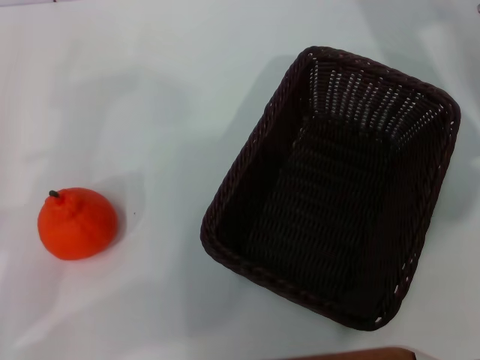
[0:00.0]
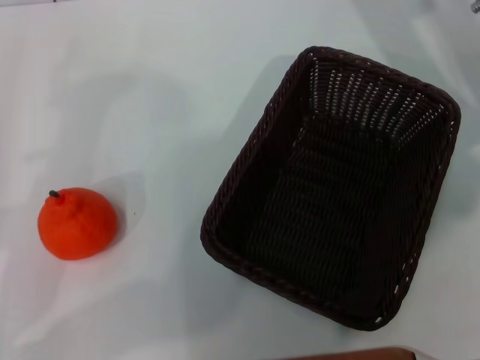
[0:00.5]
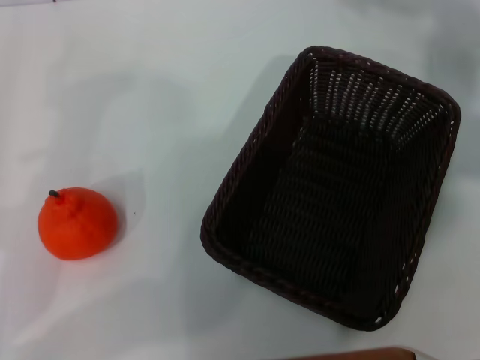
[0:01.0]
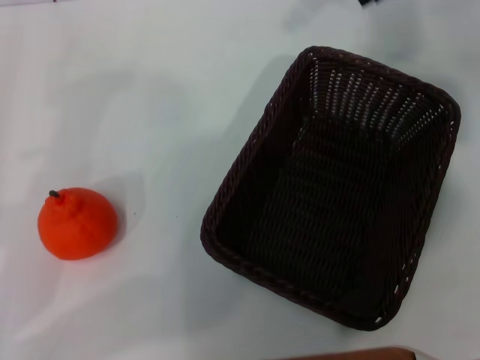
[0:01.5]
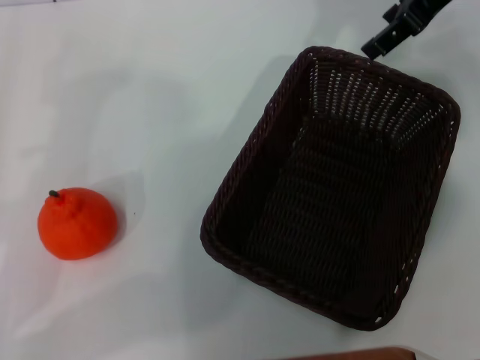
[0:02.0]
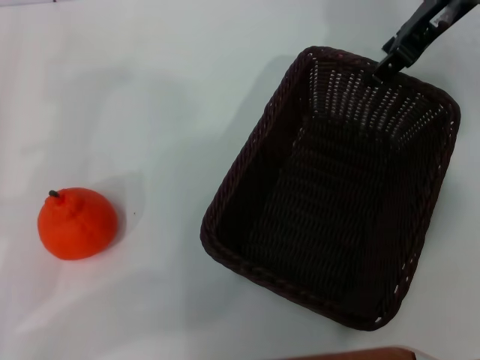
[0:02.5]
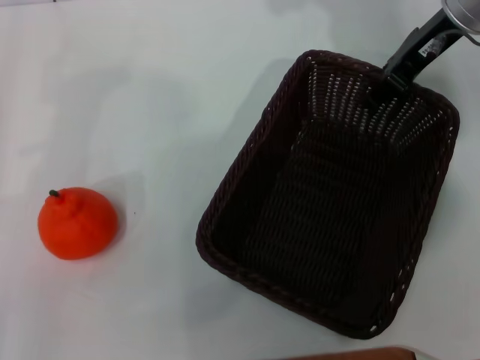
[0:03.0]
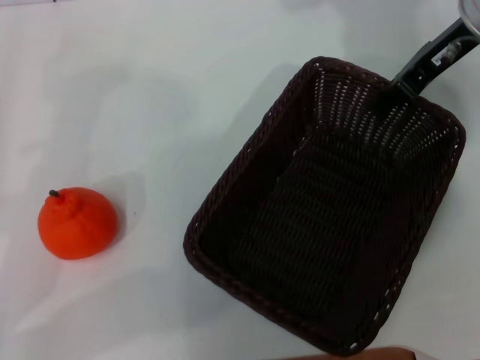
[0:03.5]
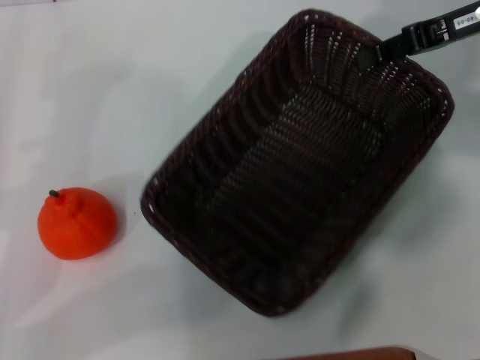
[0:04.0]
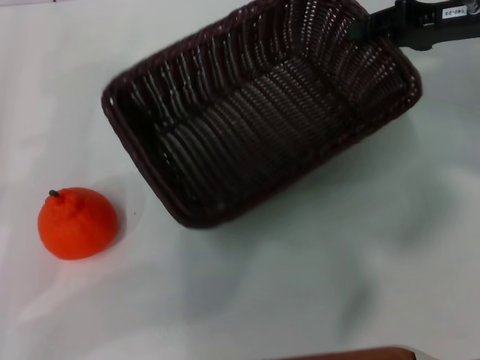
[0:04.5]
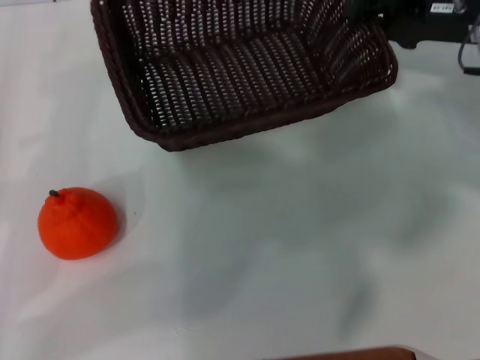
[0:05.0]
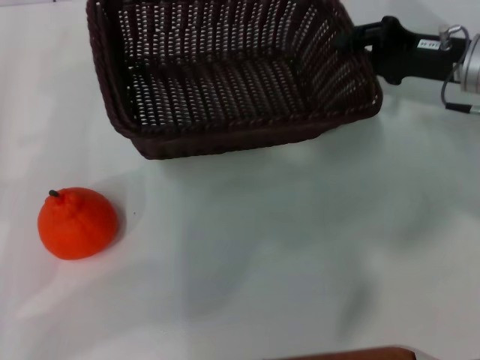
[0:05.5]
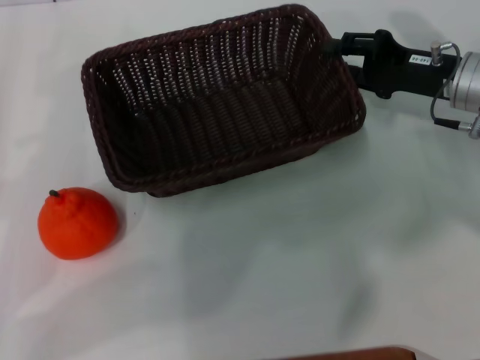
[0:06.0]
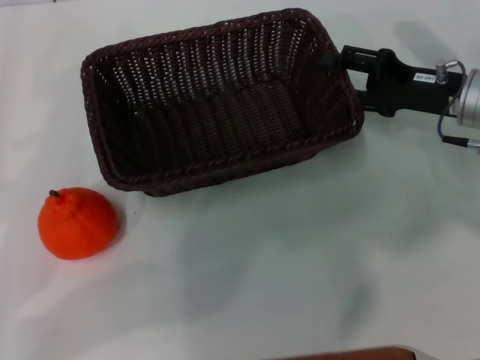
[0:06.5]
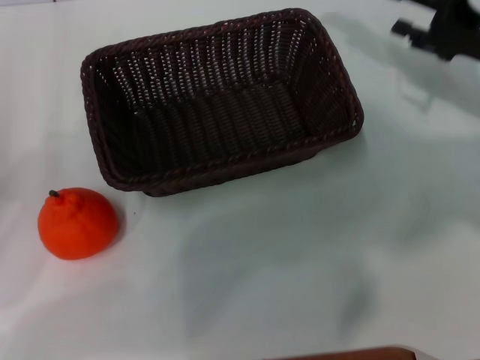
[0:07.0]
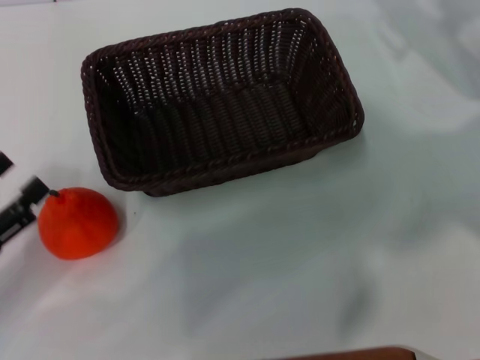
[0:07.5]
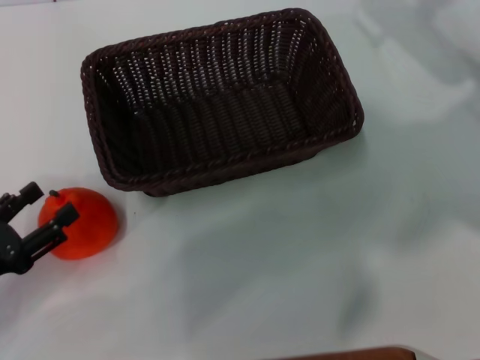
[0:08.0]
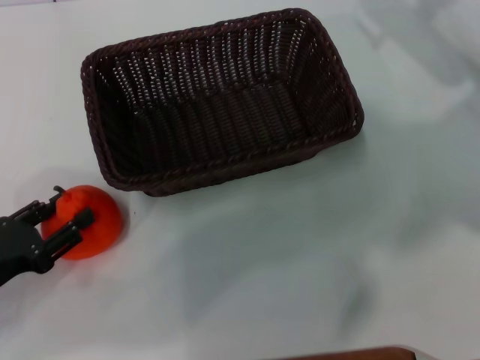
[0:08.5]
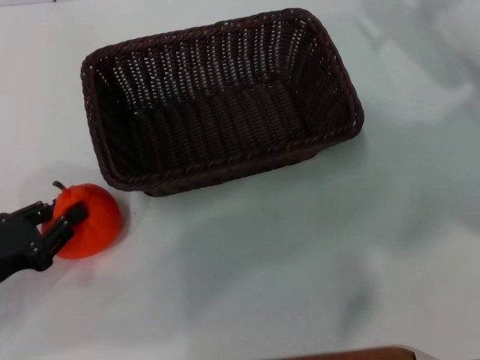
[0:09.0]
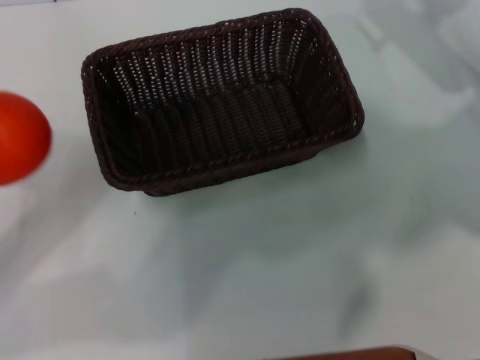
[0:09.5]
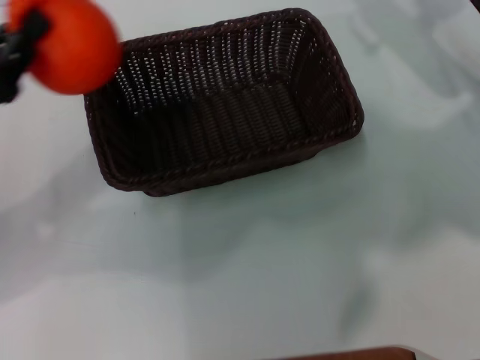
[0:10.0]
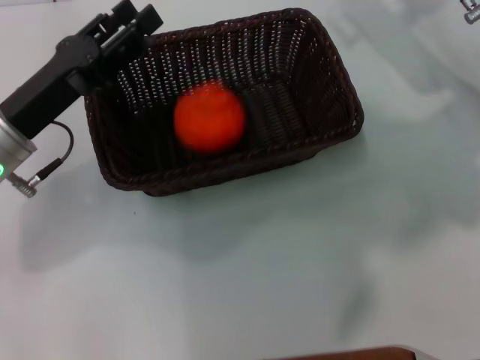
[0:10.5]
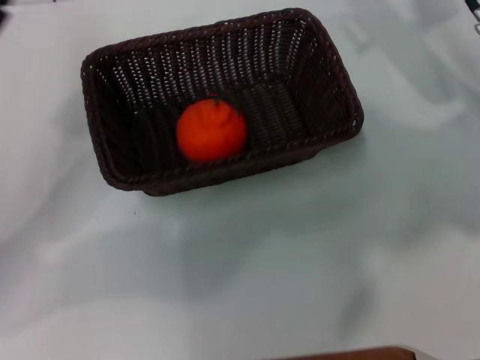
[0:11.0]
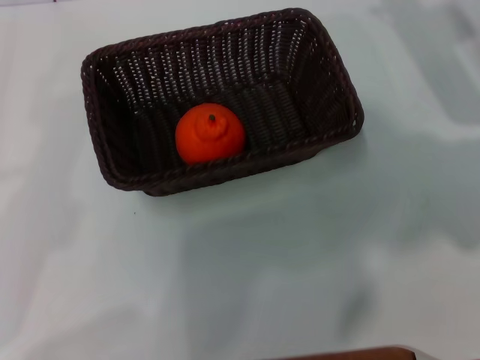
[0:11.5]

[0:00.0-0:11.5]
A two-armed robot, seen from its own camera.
Task of the whole recording: the right gripper pick up the black basket and place it horizontally in the middle of the table, the left gripper pick up the orange and place it into the black basket.
Step, 0:00.0 to 0:04.0: Pick up the dark basket with the right gripper.
Step, 0:04.5 to 0:06.5: Place the dark basket in the center of view with the right gripper.
Step, 0:07.0 to 0:09.0: Pick up the orange with the left gripper.
Step, 0:09.5 to 0:10.5: Place the orange into the dark basket with the left gripper.
0:00.0 to 0:02.0: The right gripper travels upward by roughly 10 cm.
0:02.0 to 0:04.0: The right gripper shifts approximately 10 cm downward and to the right, and closes.
0:04.0 to 0:06.0: The right gripper goes some 10 cm downward.
0:06.0 to 0:07.5: The left gripper is displaced backward by about 5 cm; the right gripper moves upward, approximately 5 cm, and opens.
0:07.5 to 0:09.5: The left gripper closes its fingers.
0:09.5 to 0:11.5: The left gripper moves approximately 10 cm forward and comes back, and opens up.
